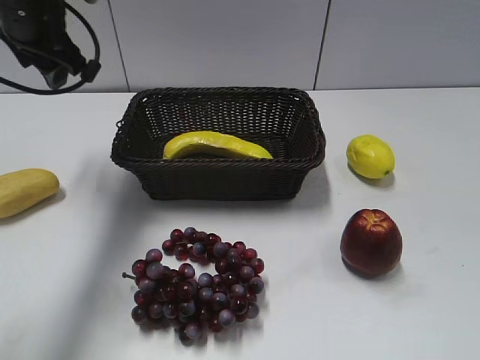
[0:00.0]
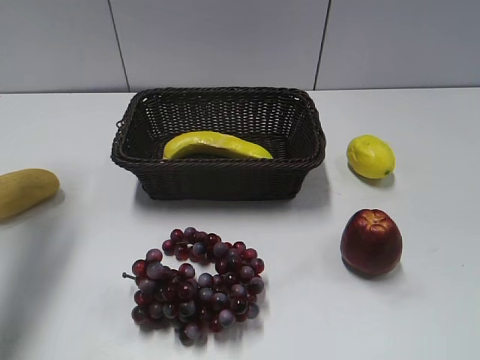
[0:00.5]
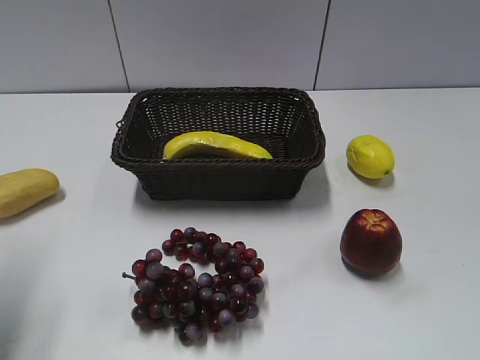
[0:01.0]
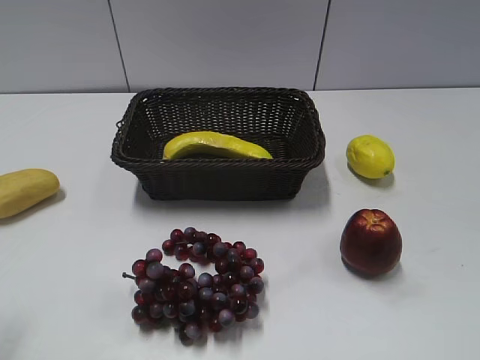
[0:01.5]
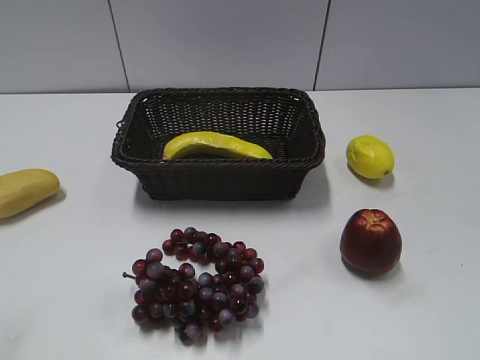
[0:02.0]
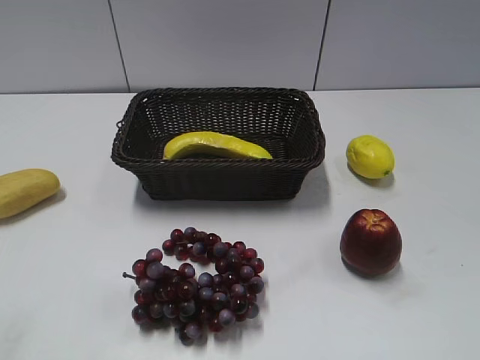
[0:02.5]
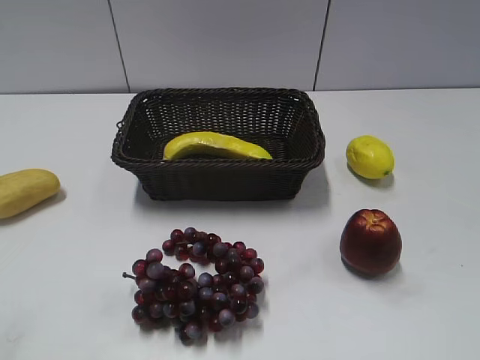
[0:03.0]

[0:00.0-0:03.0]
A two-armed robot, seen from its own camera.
0:00.0 to 0:01.5: The left gripper heads backward, covering some 30 cm.

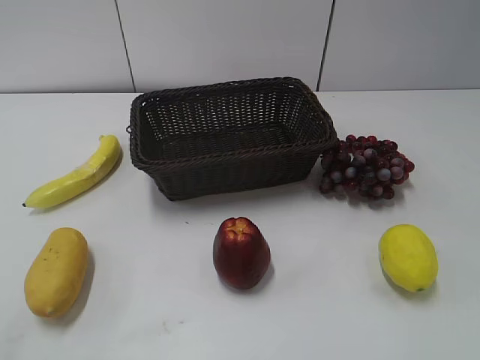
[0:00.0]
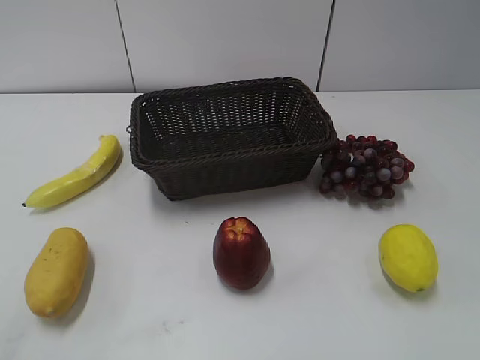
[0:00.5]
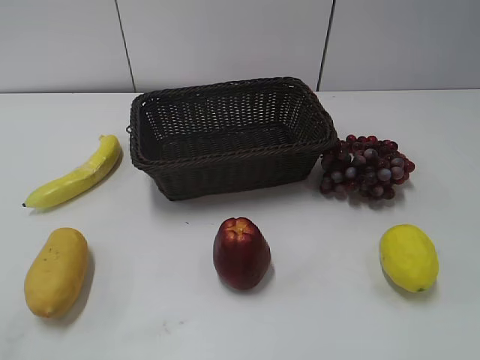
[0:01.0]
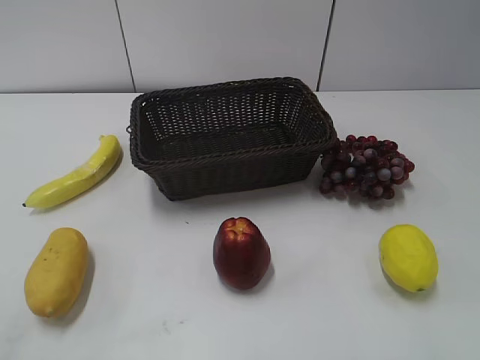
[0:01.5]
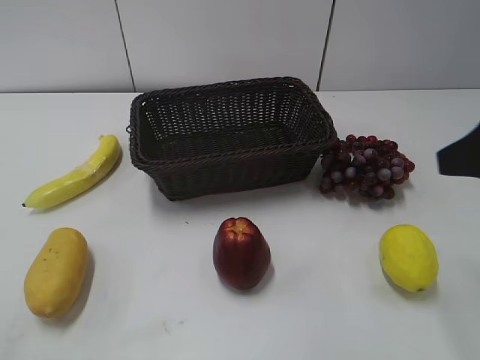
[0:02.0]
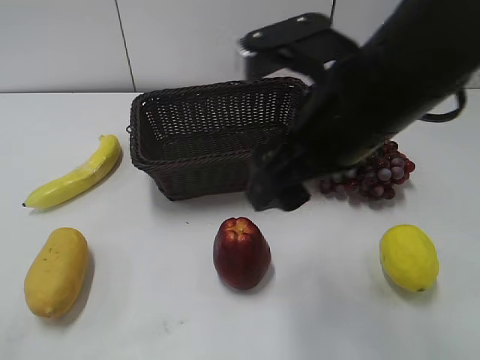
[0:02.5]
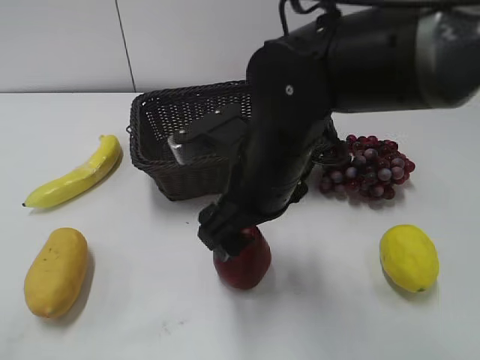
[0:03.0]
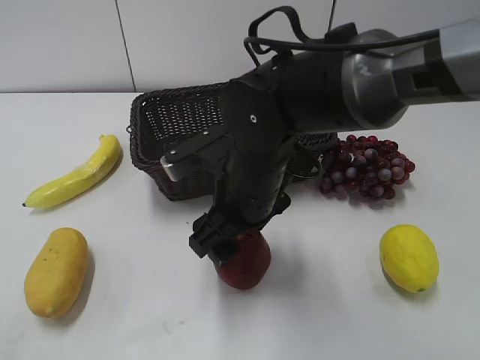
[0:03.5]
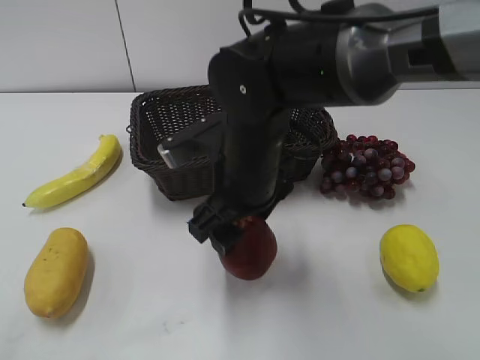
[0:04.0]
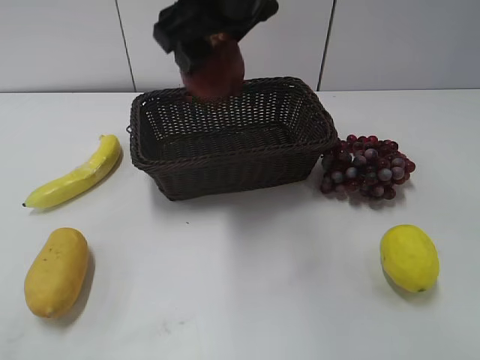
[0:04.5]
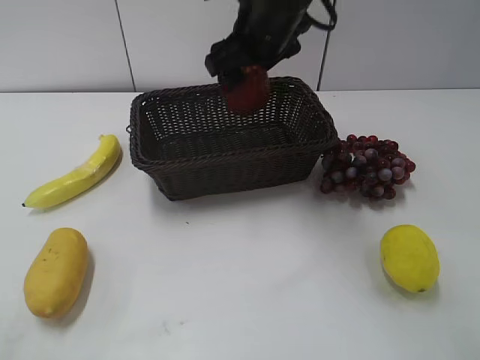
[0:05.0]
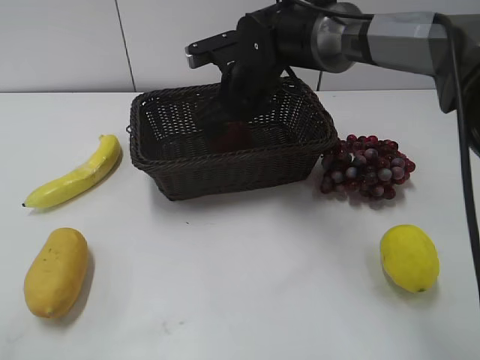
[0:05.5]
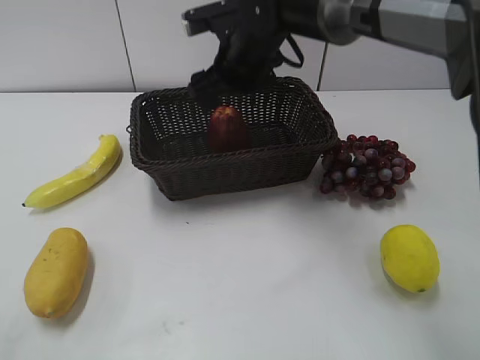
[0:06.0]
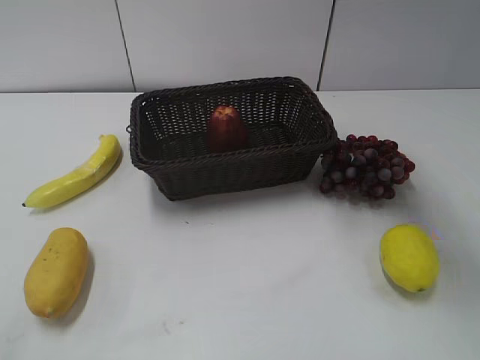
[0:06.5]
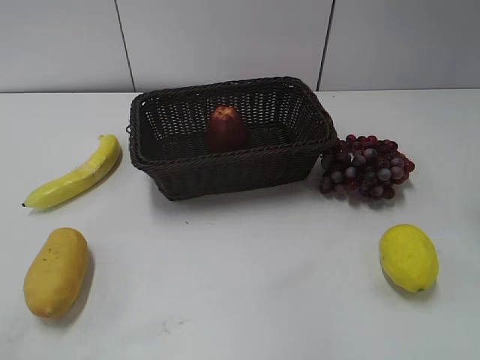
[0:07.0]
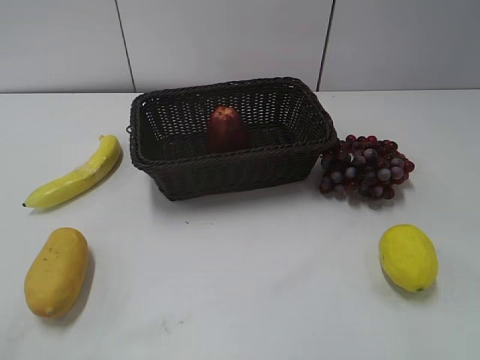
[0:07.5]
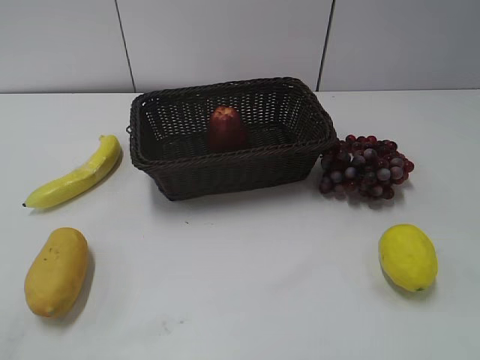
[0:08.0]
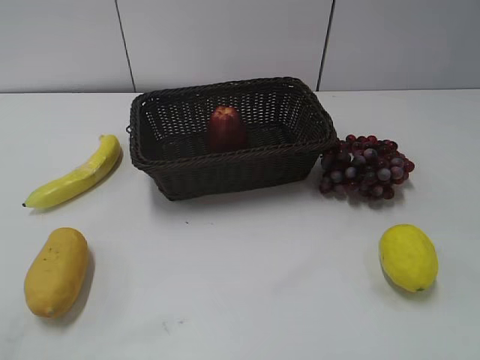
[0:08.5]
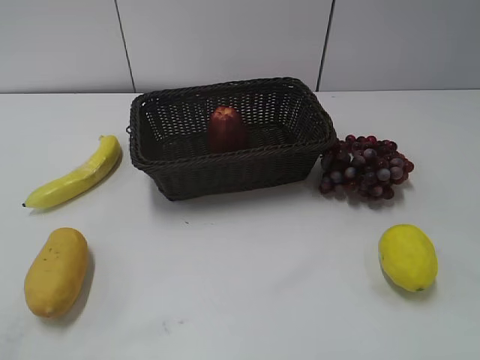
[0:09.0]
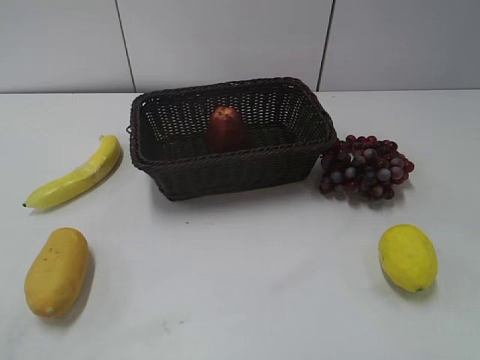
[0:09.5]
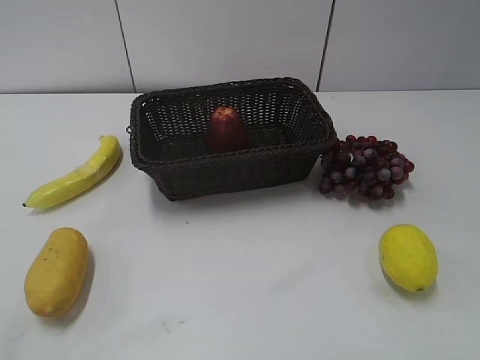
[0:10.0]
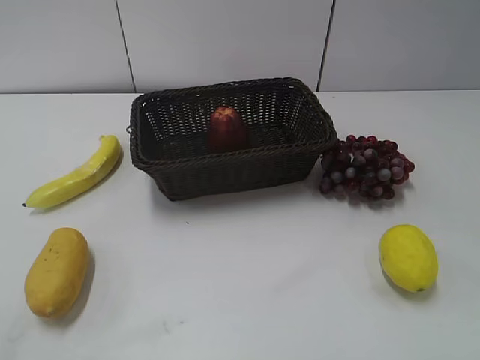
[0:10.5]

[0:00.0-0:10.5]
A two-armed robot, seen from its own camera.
Step, 0:02.0 to 0:03.5: Grasp the apple with right gripper.
Step, 0:04.0 to 0:05.5: Place the apple in the basket with right gripper.
0:02.0 to 0:04.0: The right gripper heads to the left and downward, covering approximately 30 cm, and closes.
0:04.0 to 0:06.5: The right gripper goes up and down, about 25 cm each way, reversing 2 times, and opens its fingers.
0:06.5 to 0:08.5: The right gripper shifts roughly 40 cm backward and to the right, and closes.

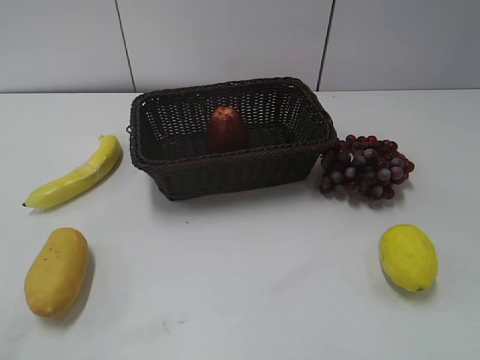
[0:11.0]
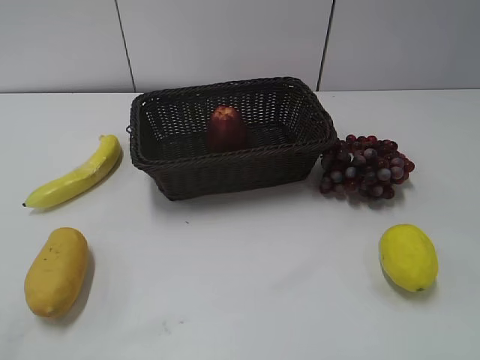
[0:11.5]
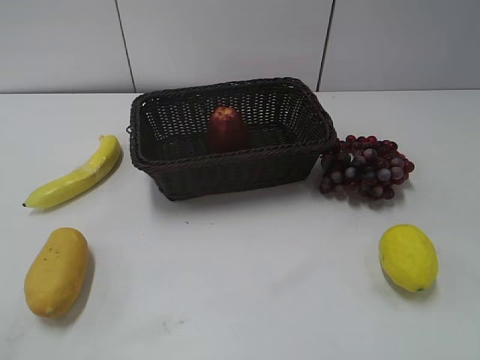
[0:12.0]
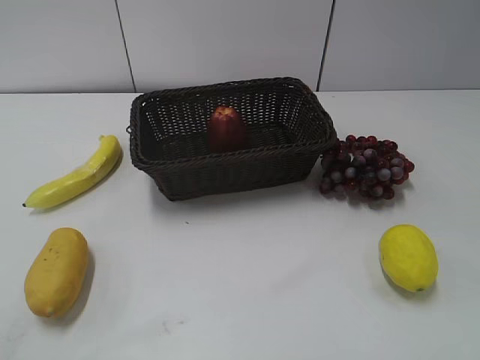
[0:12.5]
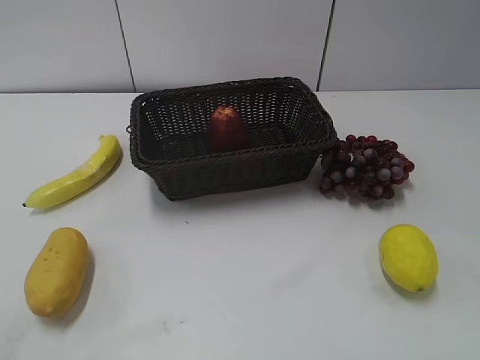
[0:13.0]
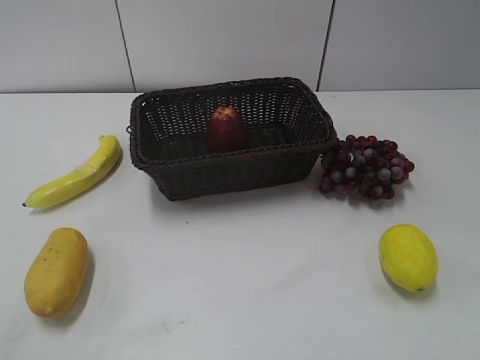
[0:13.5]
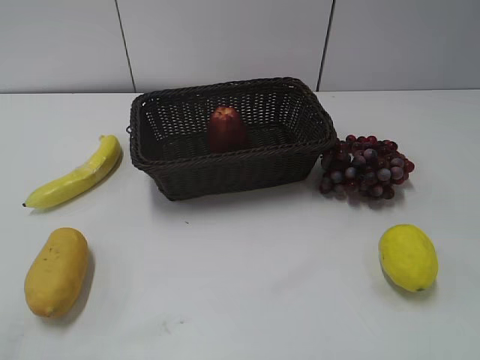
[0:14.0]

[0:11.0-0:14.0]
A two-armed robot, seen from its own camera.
0:12.5 to 0:14.0: The two grippers keep their place.
